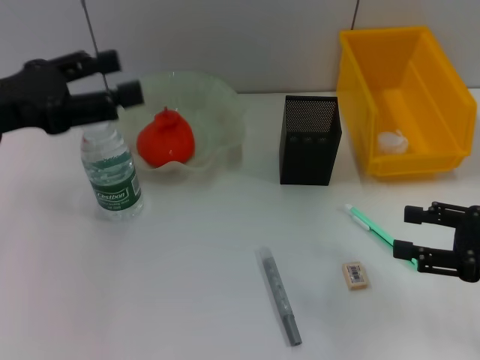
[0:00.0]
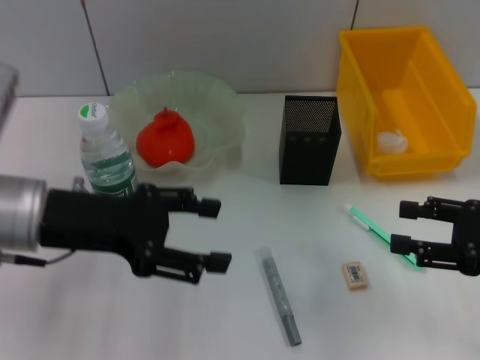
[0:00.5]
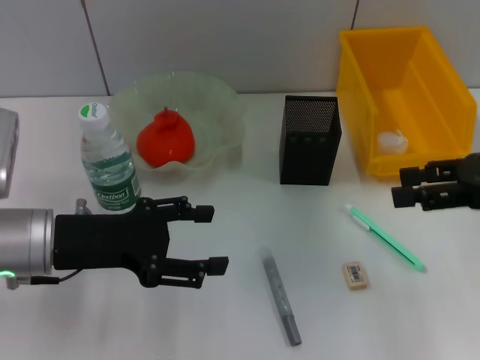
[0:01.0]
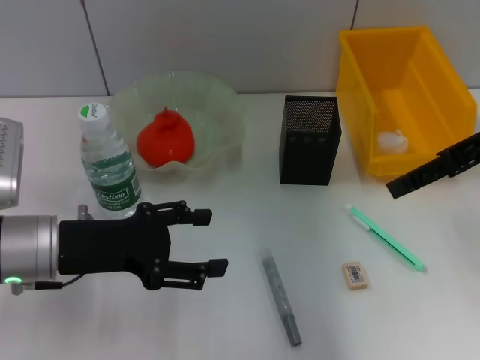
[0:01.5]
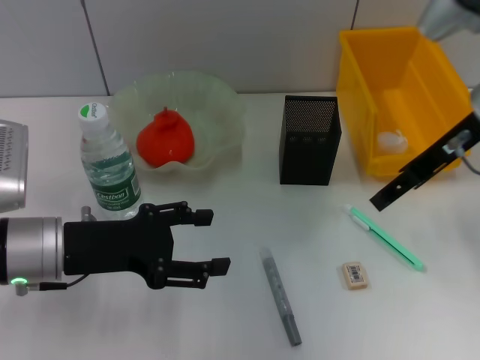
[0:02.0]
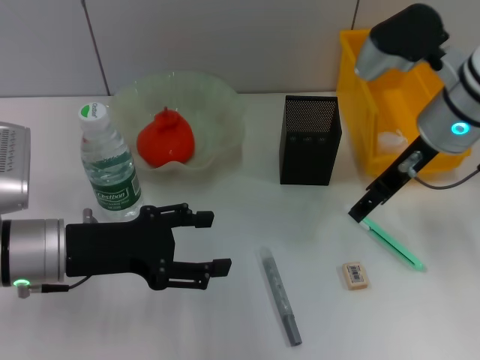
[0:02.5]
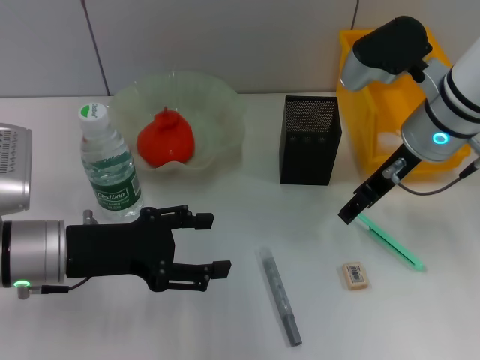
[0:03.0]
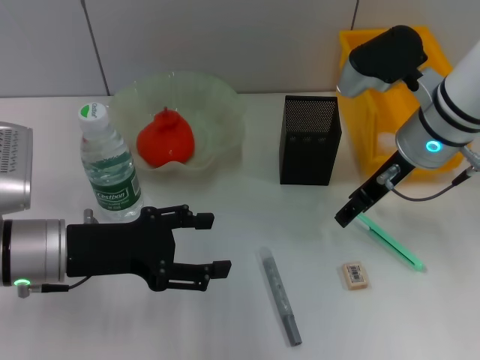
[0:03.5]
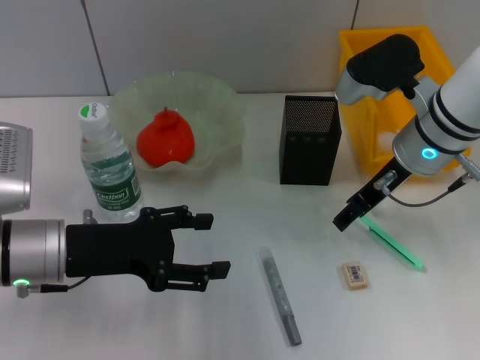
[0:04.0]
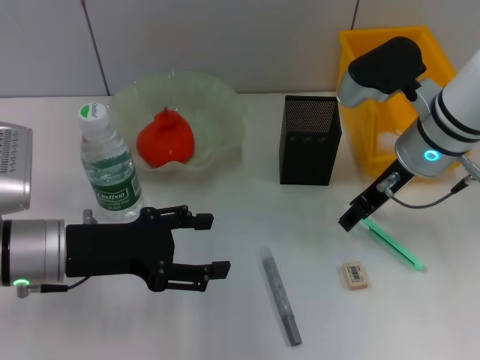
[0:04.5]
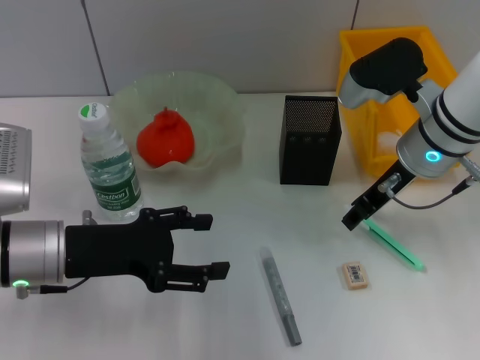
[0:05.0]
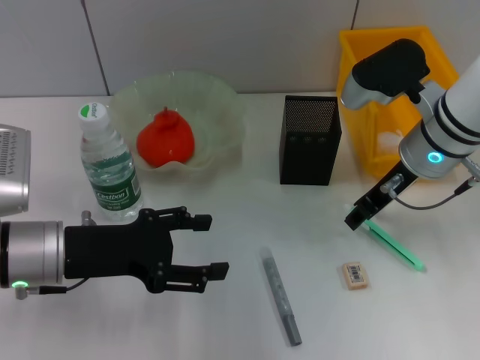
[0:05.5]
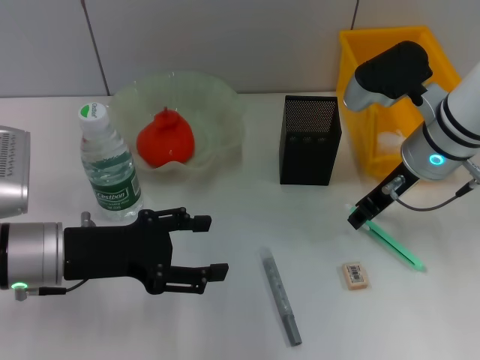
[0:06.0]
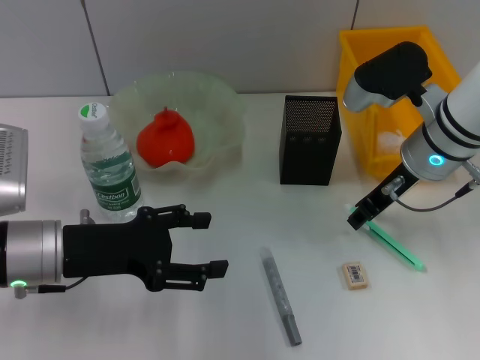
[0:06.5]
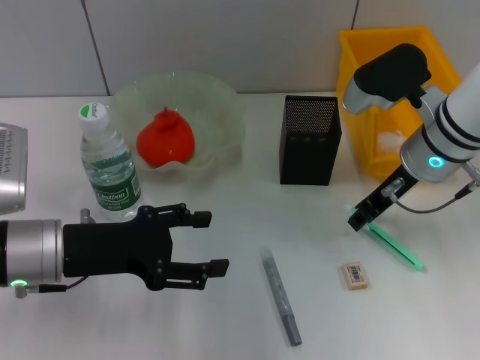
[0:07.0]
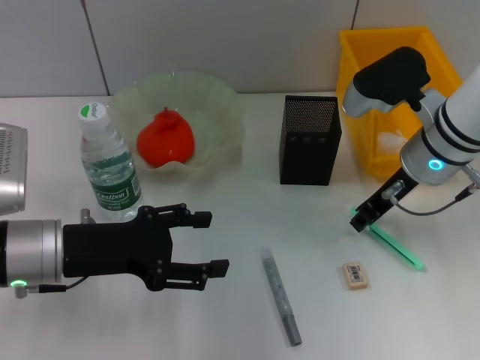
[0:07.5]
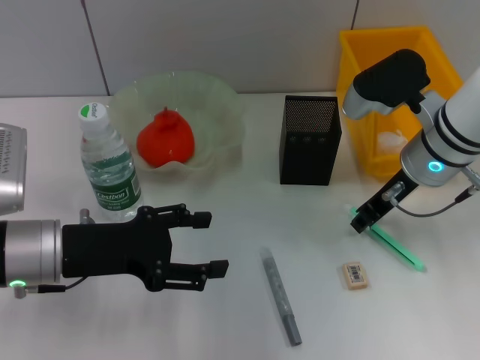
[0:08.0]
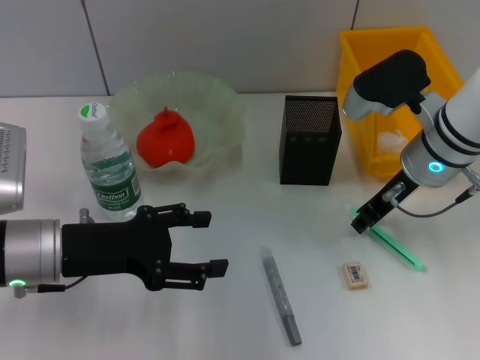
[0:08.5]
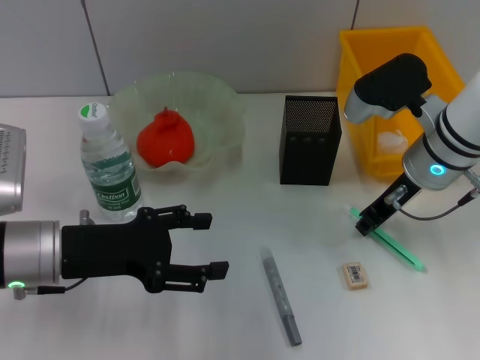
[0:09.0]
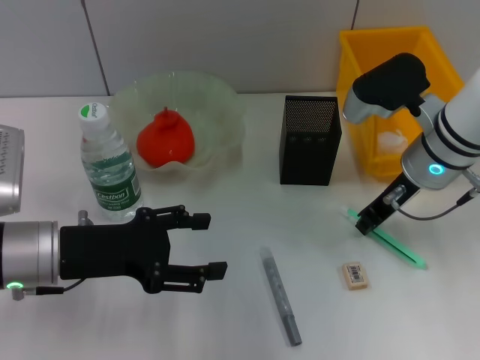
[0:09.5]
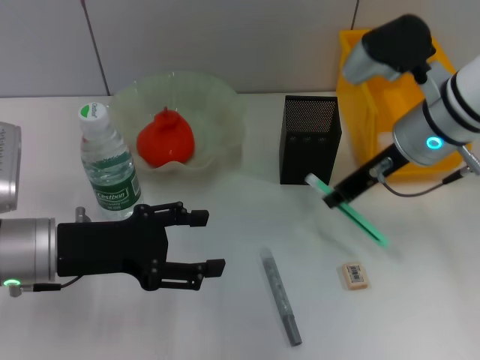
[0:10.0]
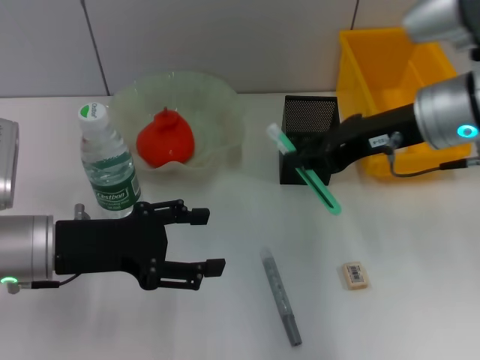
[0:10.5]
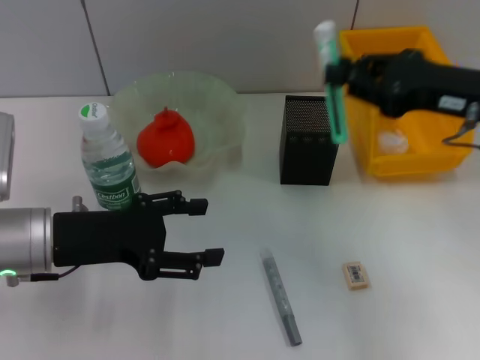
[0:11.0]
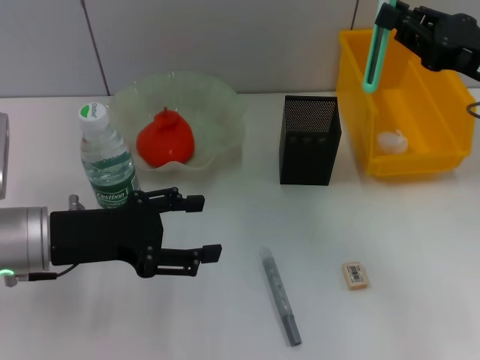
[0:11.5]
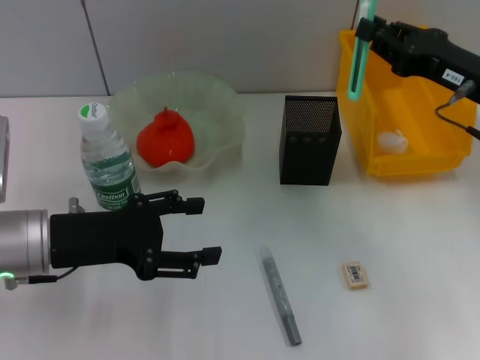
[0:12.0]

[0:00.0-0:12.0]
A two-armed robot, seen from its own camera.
Step, 0:00.0 to 0:09.5: Grab the blue utility knife with the right hand.
0:00.0 to 0:02.0: The right gripper shifts roughly 20 cm forward, upward and to the left; the left gripper heads downward and to the right, covering about 10 cm.
0:02.0 to 0:04.0: The right gripper shifts approximately 5 cm downward.
0:04.0 to 0:06.0: The right gripper closes up.
0:06.0 to 0:08.0: Both grippers stay put.
0:08.0 to 0:10.0: The grippers stay close to where they were, moving slightly.
0:10.0 to 0:12.0: The right gripper heads to the right, covering about 10 cm.

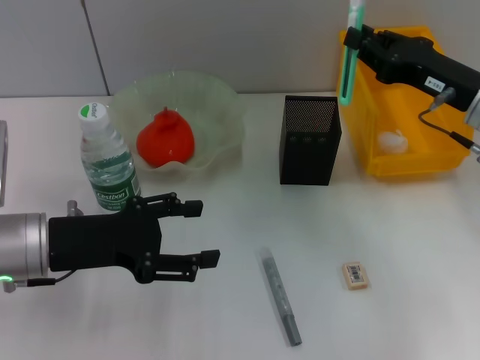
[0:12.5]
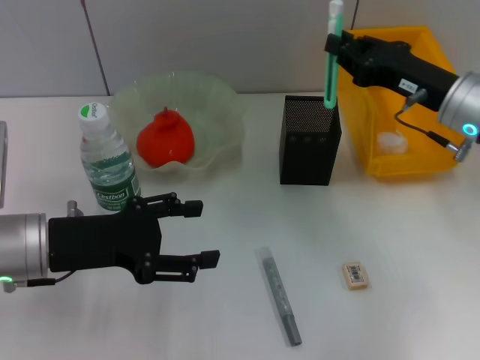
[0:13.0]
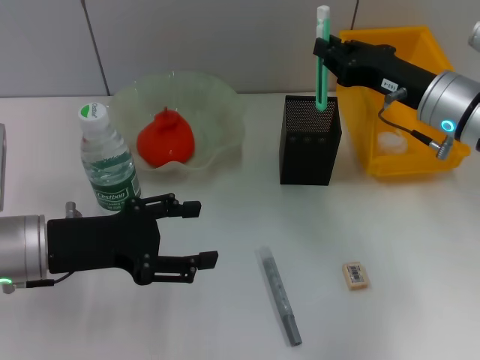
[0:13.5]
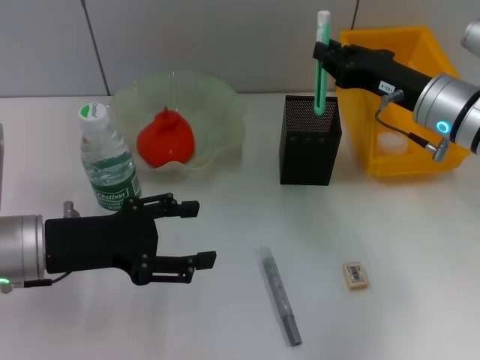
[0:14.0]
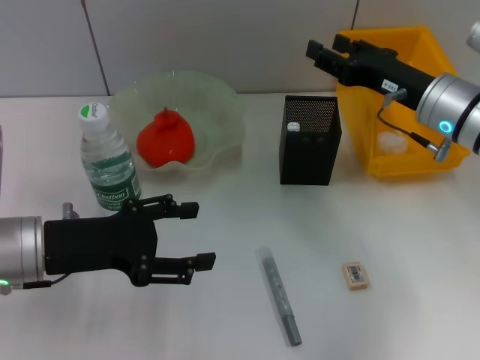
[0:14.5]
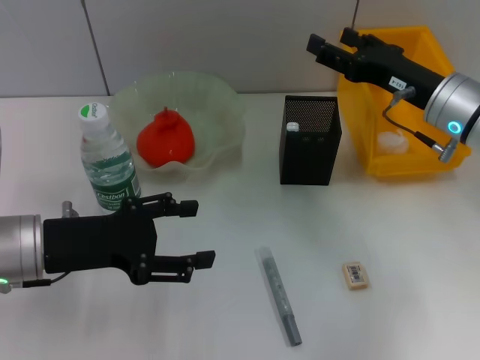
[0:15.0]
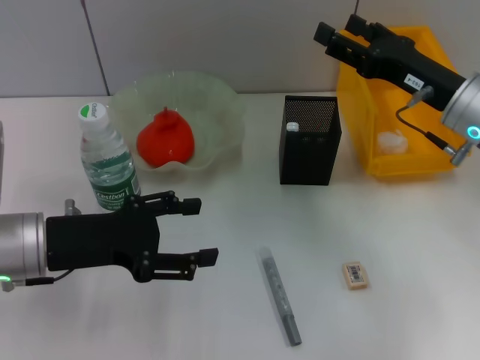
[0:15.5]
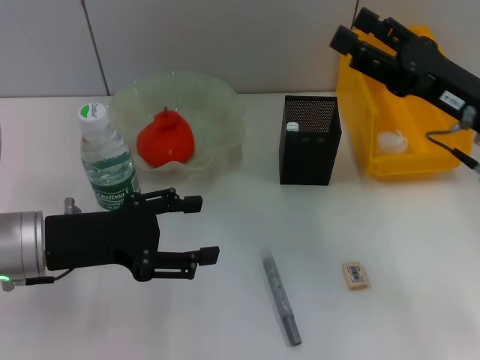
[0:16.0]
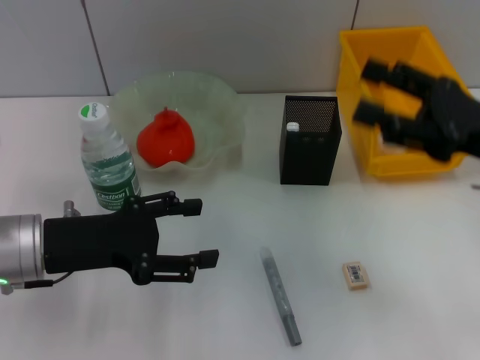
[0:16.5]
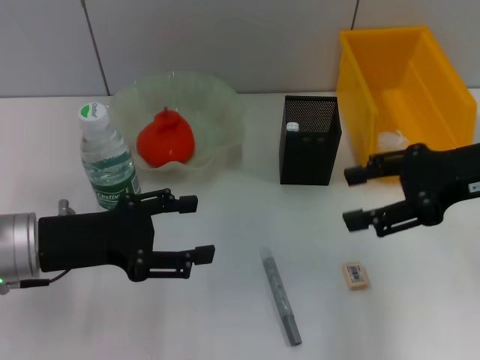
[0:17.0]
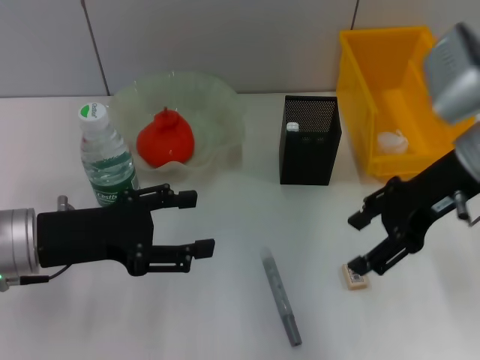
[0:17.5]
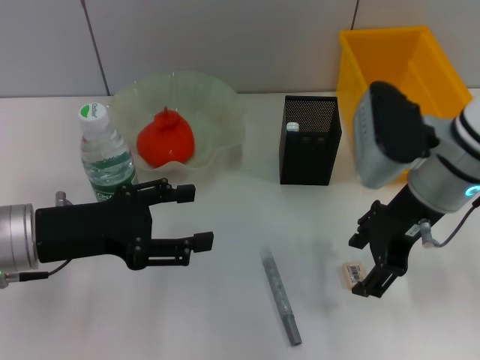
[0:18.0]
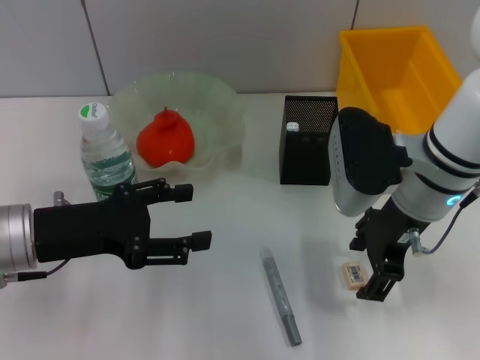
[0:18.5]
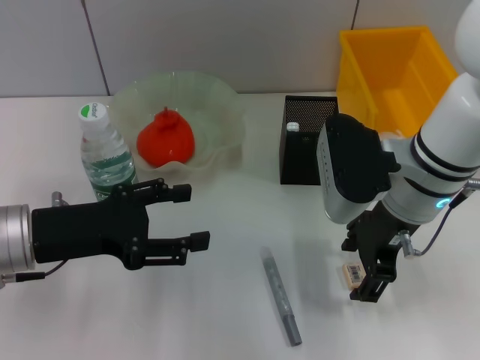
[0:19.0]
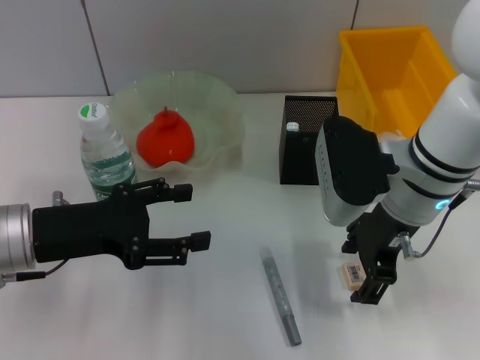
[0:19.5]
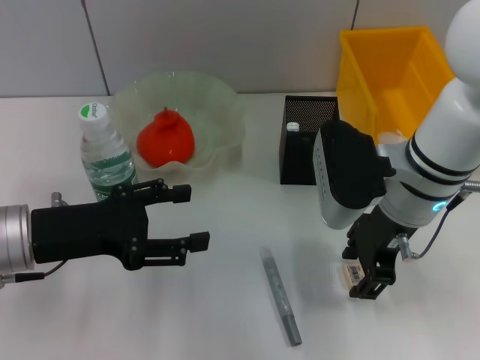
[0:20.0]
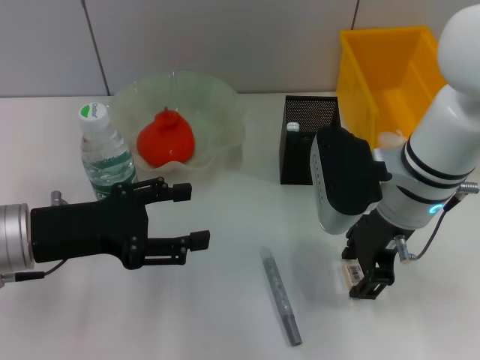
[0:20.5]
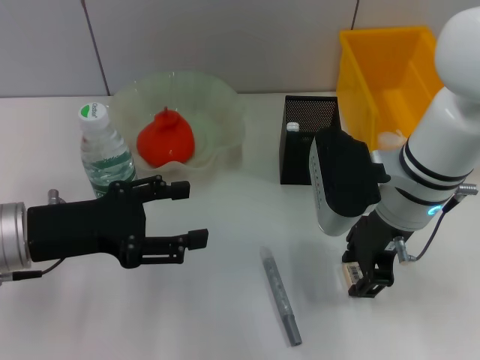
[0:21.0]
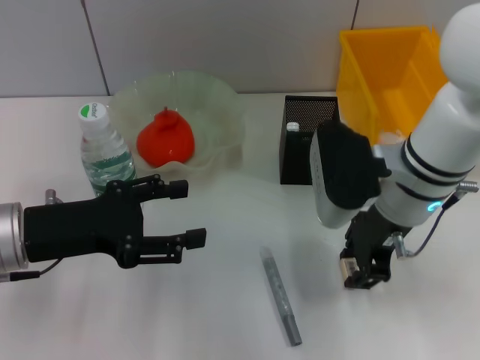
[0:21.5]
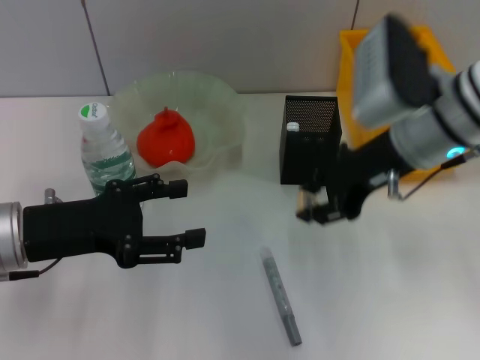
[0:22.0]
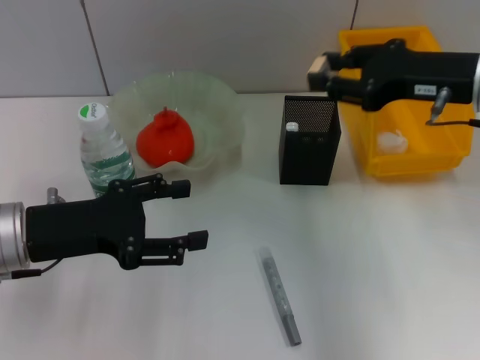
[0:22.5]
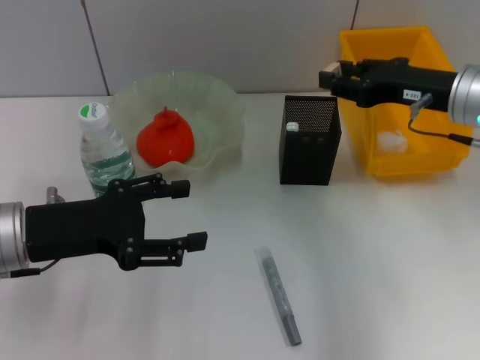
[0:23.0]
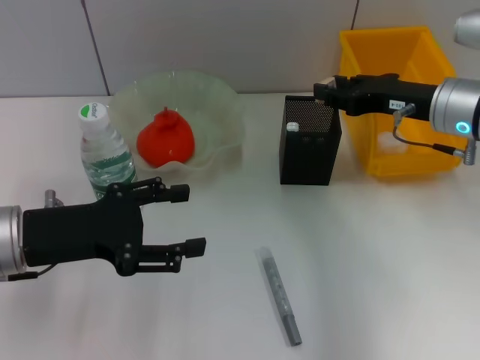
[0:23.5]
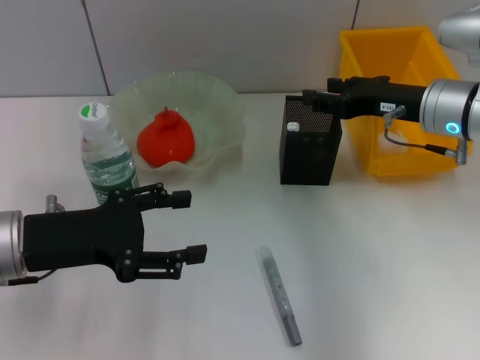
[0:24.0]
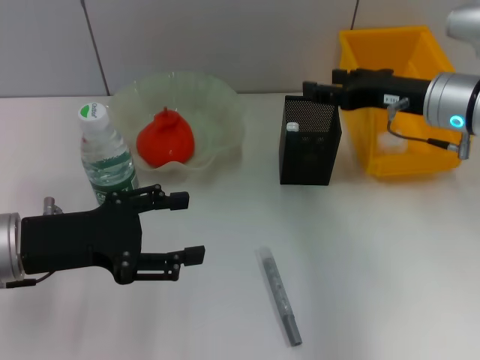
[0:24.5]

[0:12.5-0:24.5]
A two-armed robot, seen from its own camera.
Step, 0:14.5 to 0:21.0: Grab the eraser with the right hand.
Step, 0:21.5 to 0:24.0: Put the eraser into the pen holder with the right hand.
0:12.5 to 0:14.5: The grippers make only small movements.
0:14.5 to 0:16.5: The right gripper travels backward and to the right by about 10 cm, and opens up.
0:16.5 to 0:18.5: The right gripper shifts roughly 10 cm to the left.
0:18.5 to 0:20.5: The grippers make only small movements.
0:20.5 to 0:22.5: The right gripper heads to the right and upward, covering approximately 10 cm.
0:22.5 to 0:24.5: The right gripper is displaced downward by roughly 5 cm, and opens its fingers.

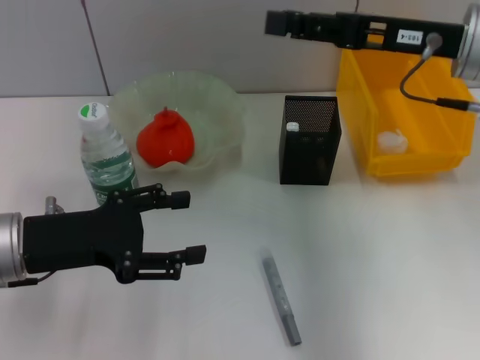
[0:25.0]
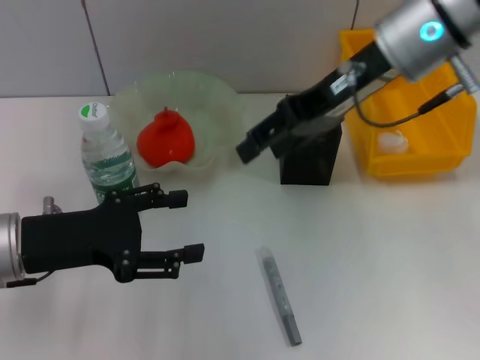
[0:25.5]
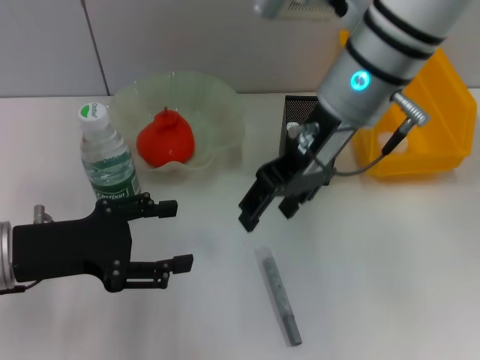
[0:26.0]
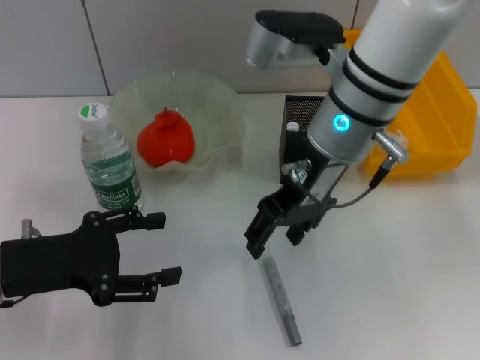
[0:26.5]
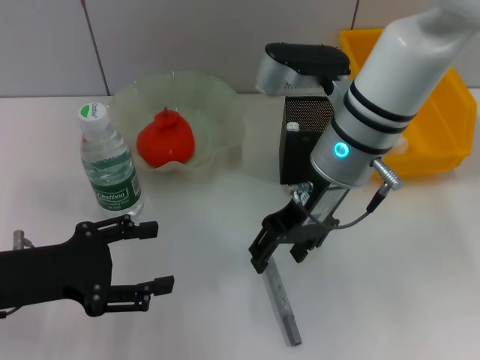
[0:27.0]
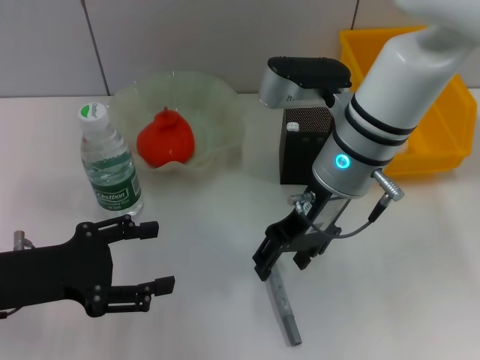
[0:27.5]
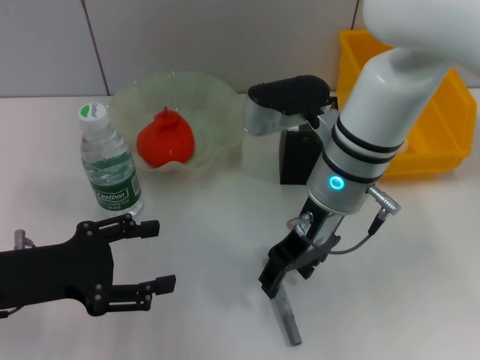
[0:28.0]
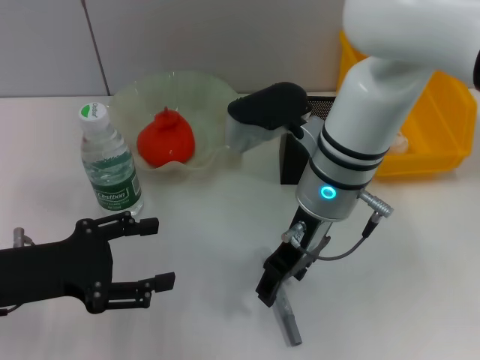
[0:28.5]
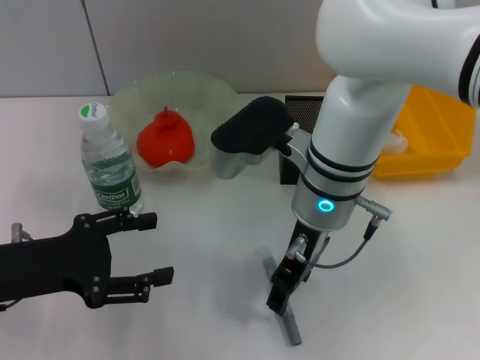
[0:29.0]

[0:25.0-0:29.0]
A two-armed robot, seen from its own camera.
0:25.0 to 0:27.0: The right gripper is displaced to the left and downward by approximately 15 cm.
0:27.0 to 0:29.0: The right gripper changes place by approximately 5 cm.
